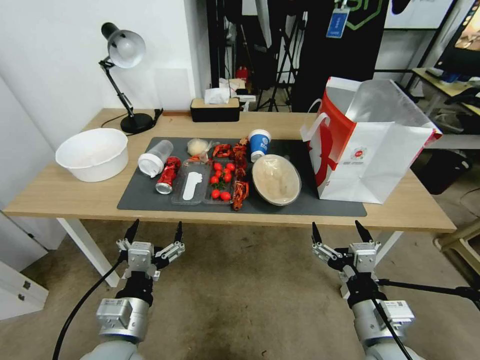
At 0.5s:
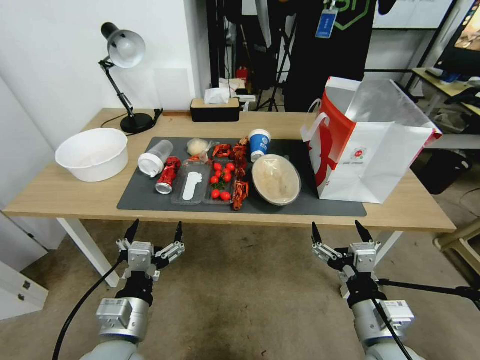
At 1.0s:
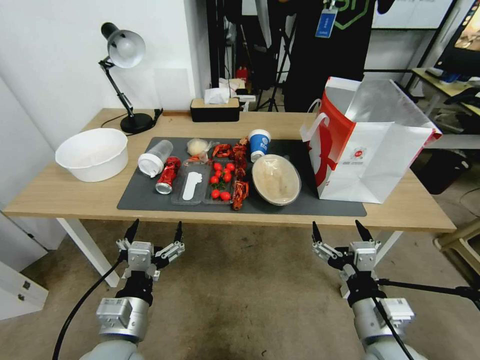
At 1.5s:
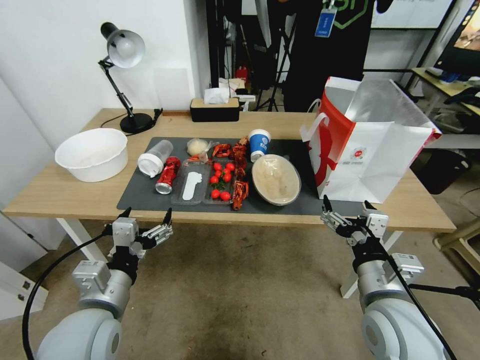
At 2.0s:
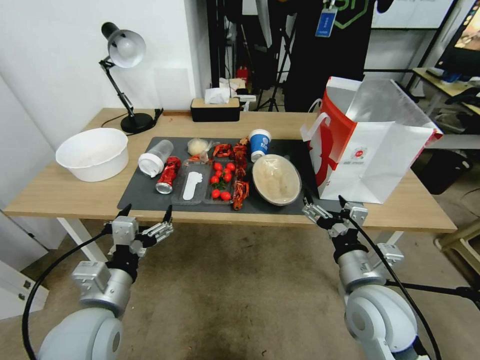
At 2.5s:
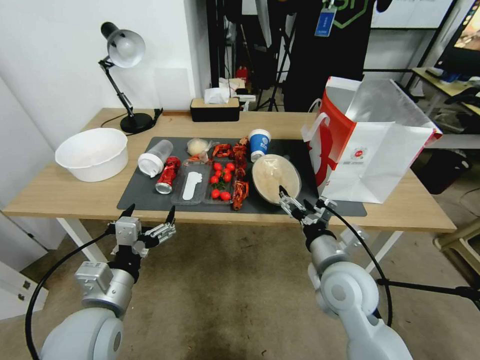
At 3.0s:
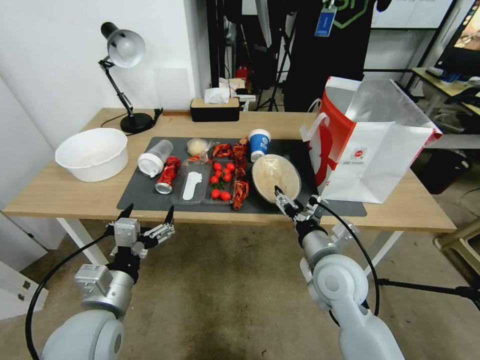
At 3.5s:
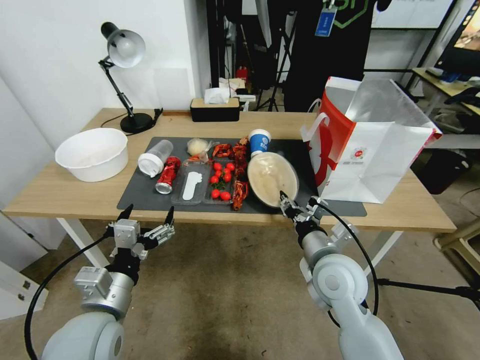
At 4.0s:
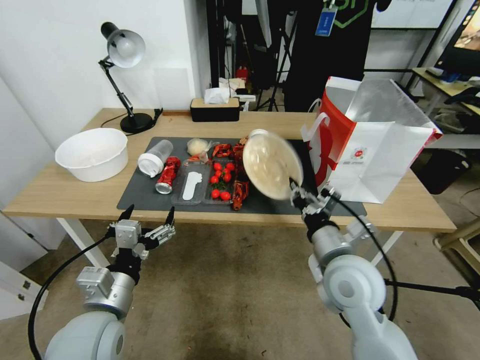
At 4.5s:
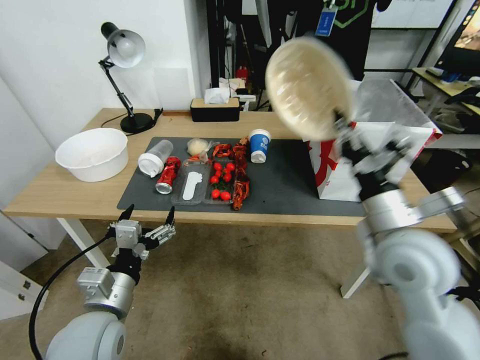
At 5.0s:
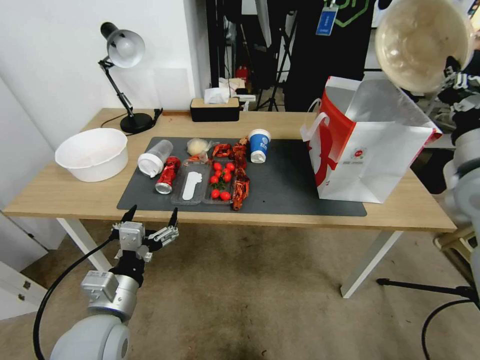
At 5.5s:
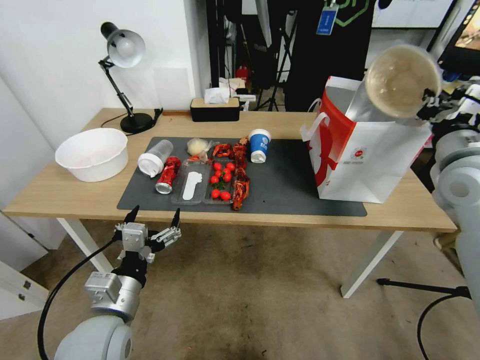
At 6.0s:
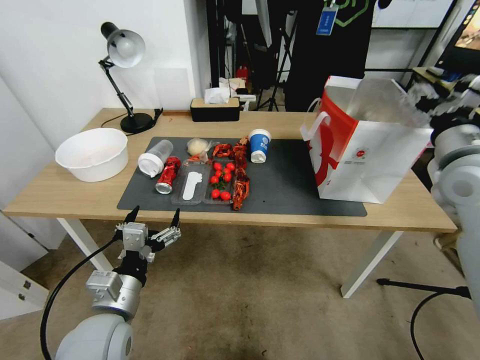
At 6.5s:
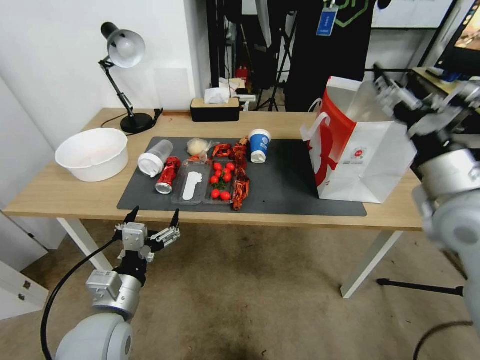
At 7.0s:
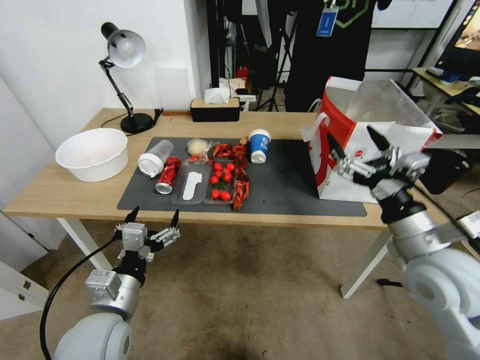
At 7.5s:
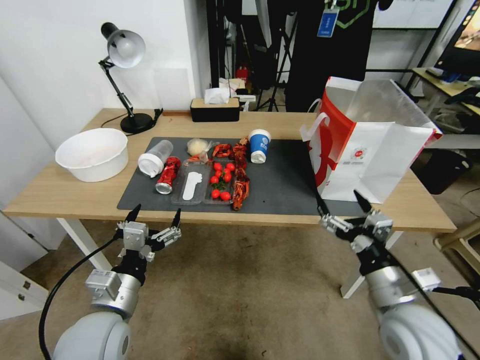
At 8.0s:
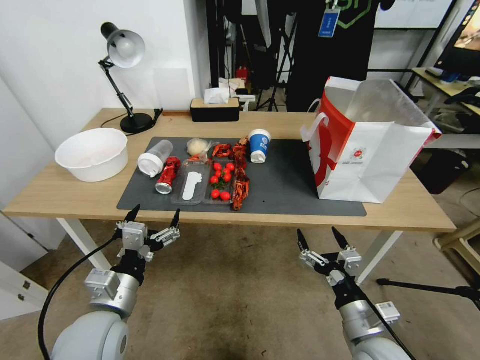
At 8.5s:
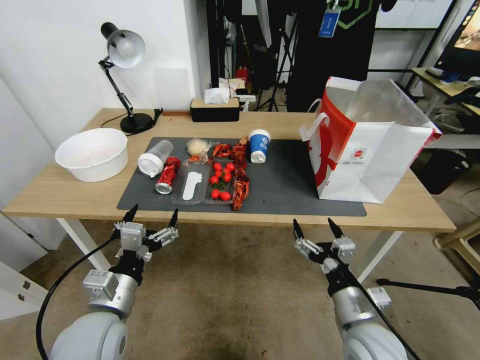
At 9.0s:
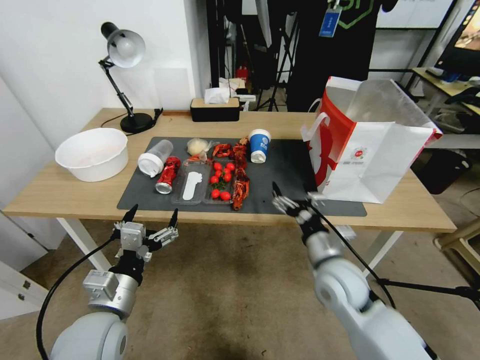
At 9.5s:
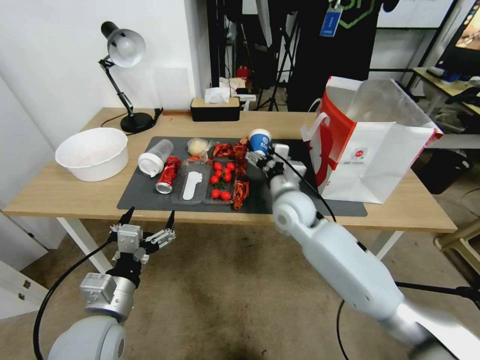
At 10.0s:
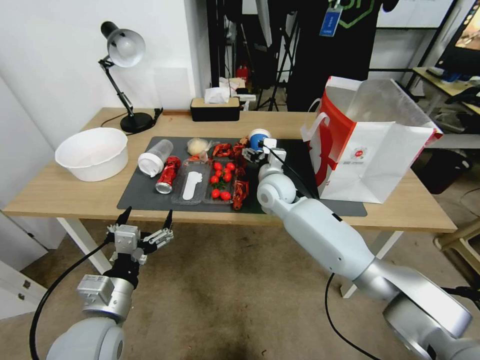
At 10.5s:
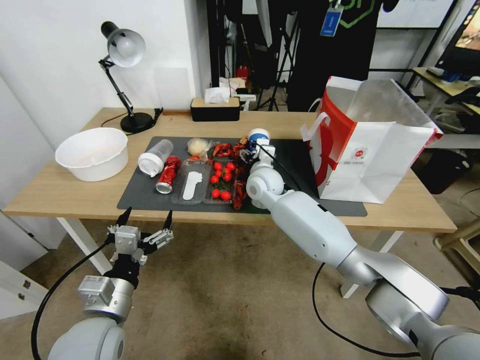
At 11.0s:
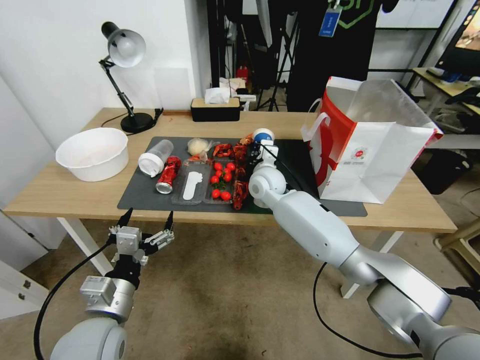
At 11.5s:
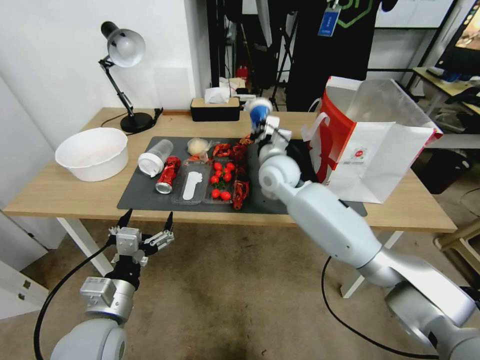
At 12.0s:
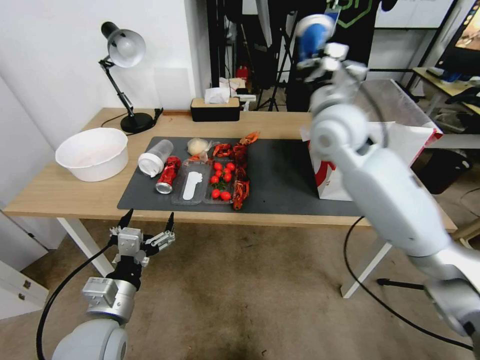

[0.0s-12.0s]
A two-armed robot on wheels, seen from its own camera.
2.0s to 4.0s: The right gripper heads forward, covering roughly 5 cm, and closes.
4.0s to 6.0s: The right gripper travels to the right, upward and forward by some 25 cm, and opens up.
6.0s to 8.0s: The right gripper is displaced downward, backward and to the left by roughly 35 cm, and opens up.
8.0s to 10.0s: The right gripper shifts about 35 cm forward and to the left.
10.0s to 12.0s: The right gripper goes some 10 cm upward, and closes up.

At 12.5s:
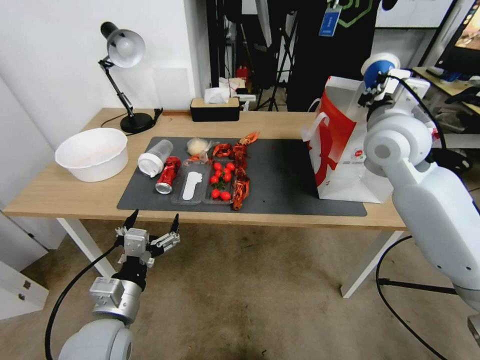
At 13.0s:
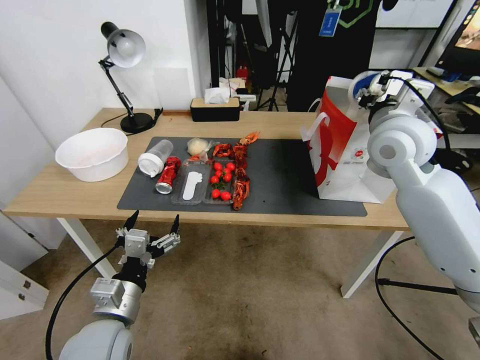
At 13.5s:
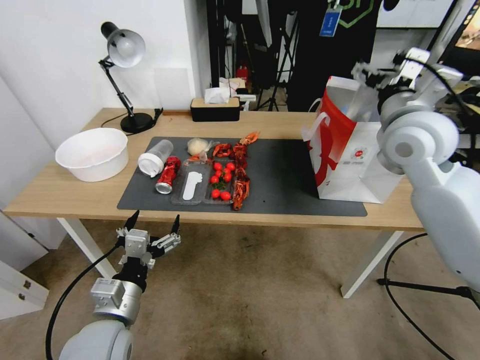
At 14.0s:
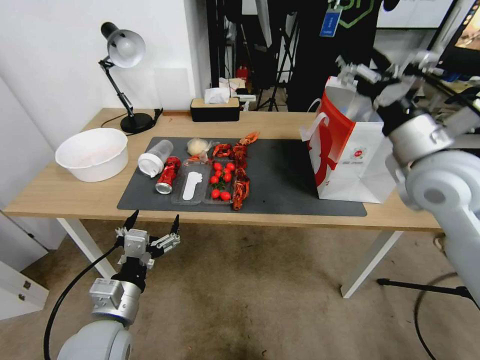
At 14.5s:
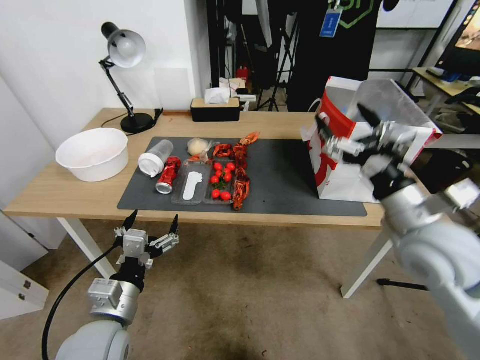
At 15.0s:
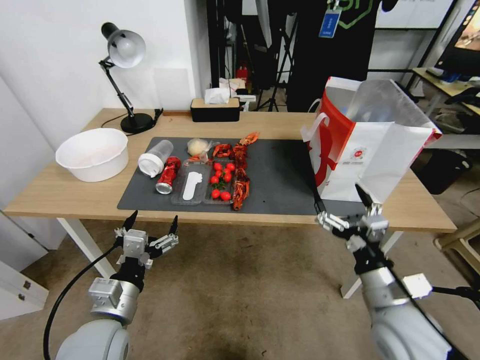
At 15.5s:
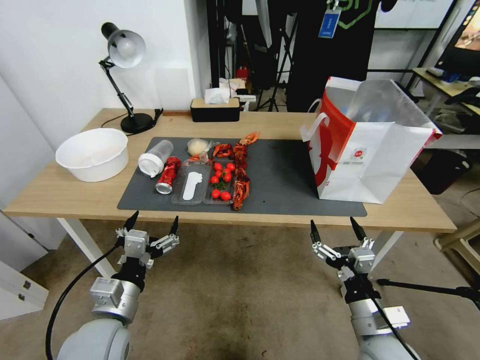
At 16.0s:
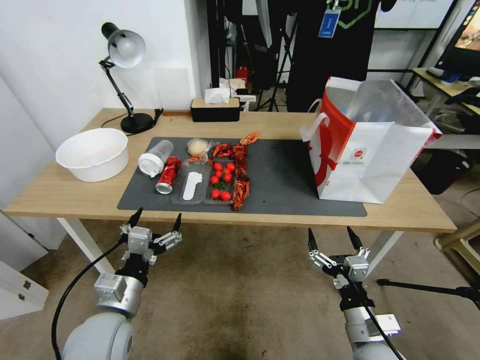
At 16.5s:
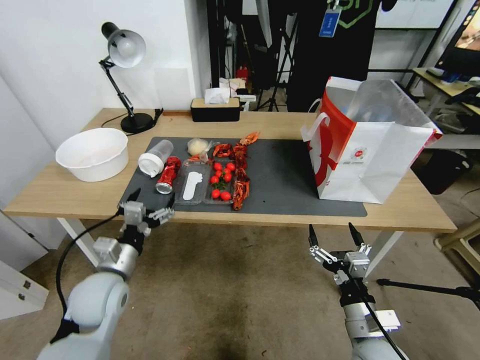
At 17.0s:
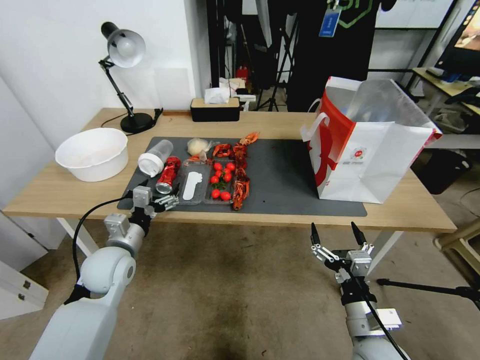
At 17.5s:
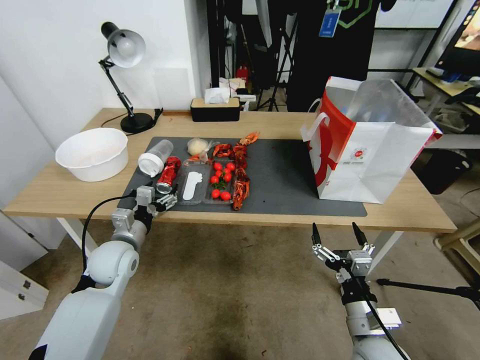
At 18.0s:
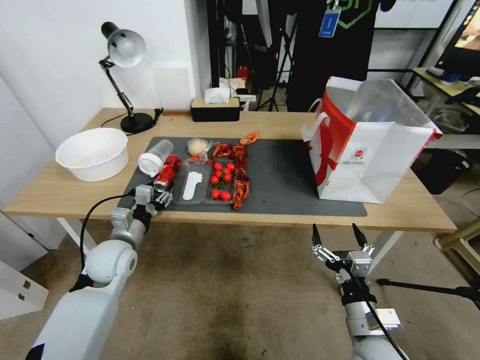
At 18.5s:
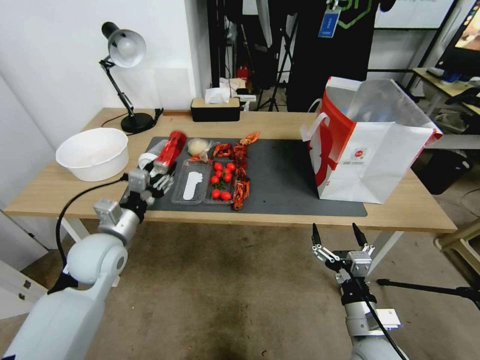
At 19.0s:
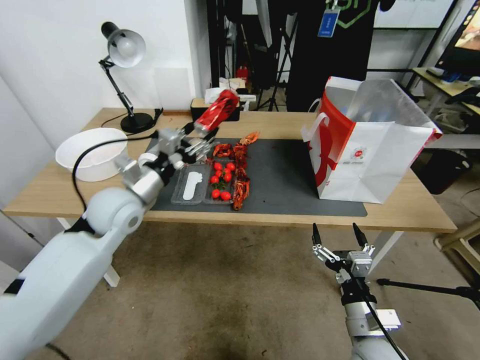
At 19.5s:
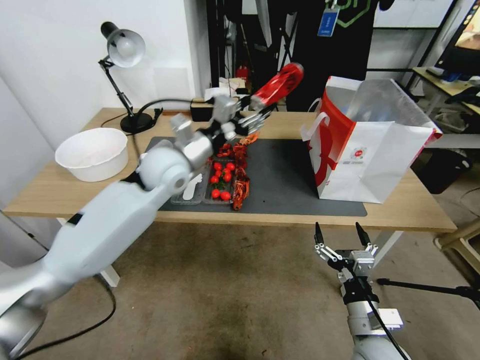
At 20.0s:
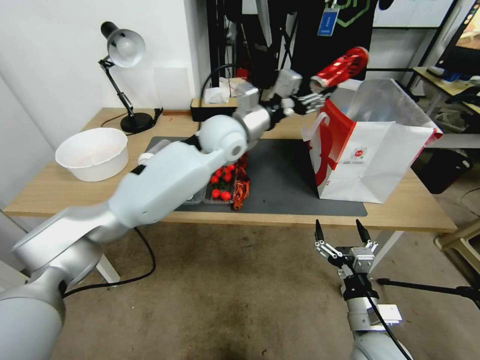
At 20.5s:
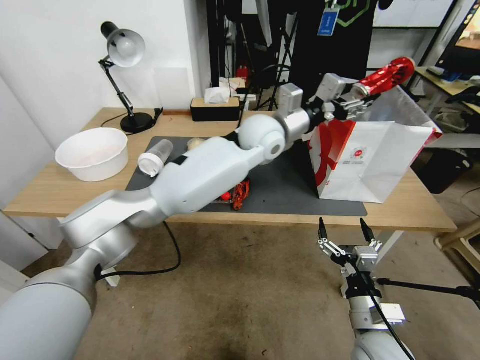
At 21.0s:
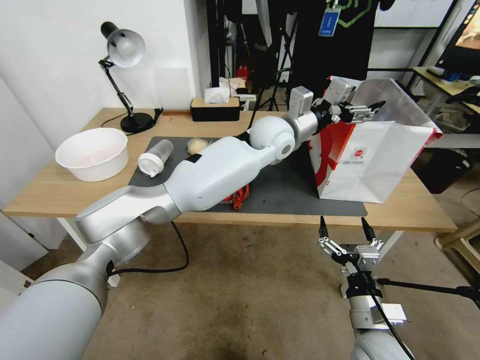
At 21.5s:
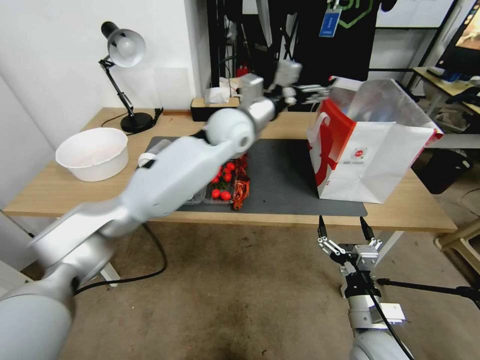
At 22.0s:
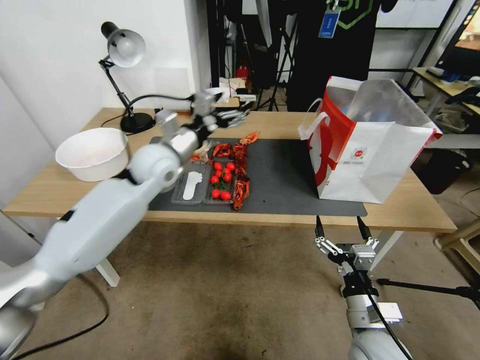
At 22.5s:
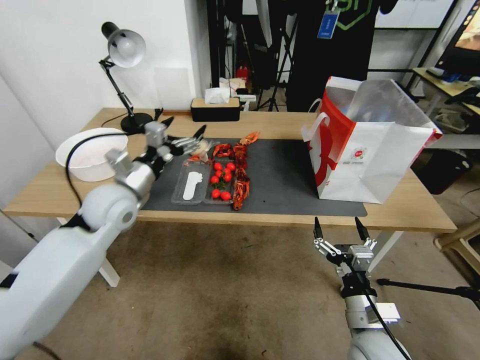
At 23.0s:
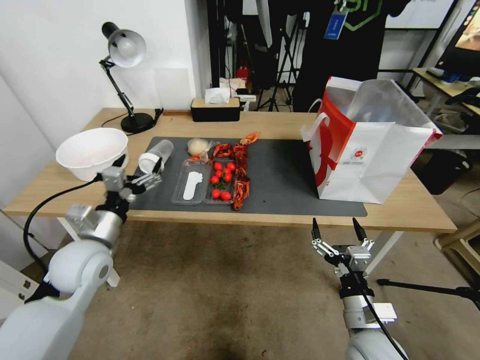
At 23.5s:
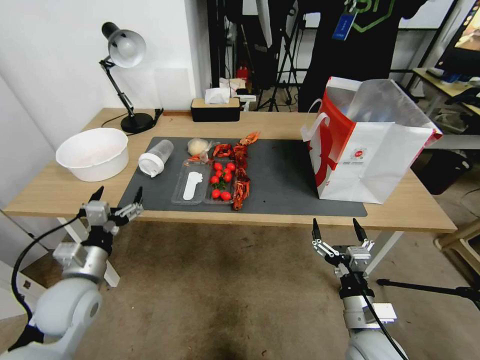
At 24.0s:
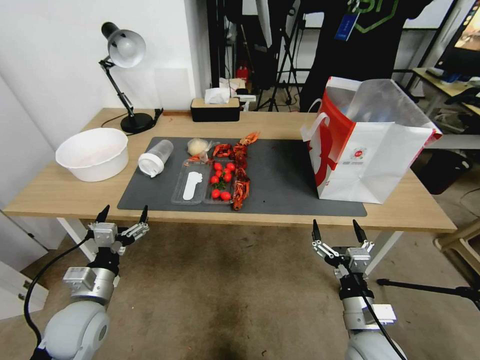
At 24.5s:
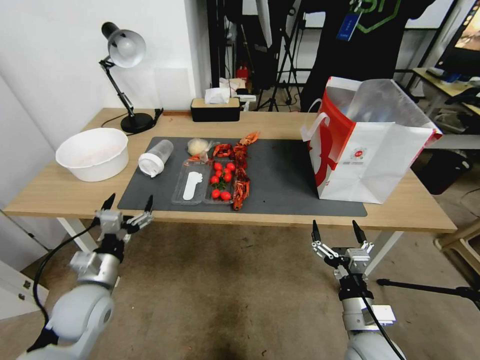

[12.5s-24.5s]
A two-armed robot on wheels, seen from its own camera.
12.5s to 14.5s: The right gripper heads backward and downward, covering about 20 cm, and opens its fingers.
14.5s to 16.5s: The right gripper moves downward and backward, about 25 cm. The left gripper goes roughly 10 cm forward.
16.5s to 18.5s: The left gripper travels forward by approximately 5 cm, and closes its fingers.
18.5s to 20.5s: The left gripper heads to the right, forward and upward, covering some 40 cm.
20.5s to 22.5s: The left gripper travels to the left by roughly 30 cm, and opens.
22.5s to 24.5s: The left gripper shifts some 25 cm backward and downward.

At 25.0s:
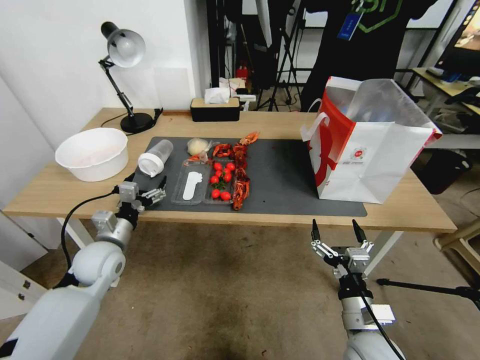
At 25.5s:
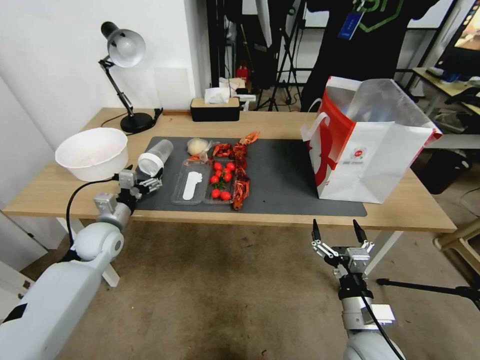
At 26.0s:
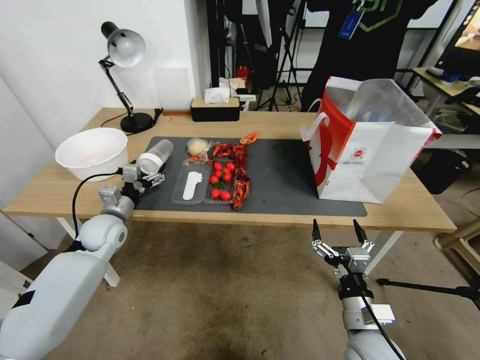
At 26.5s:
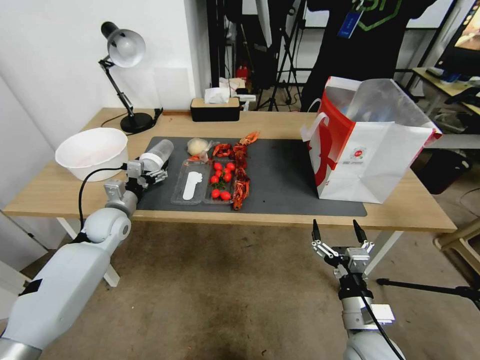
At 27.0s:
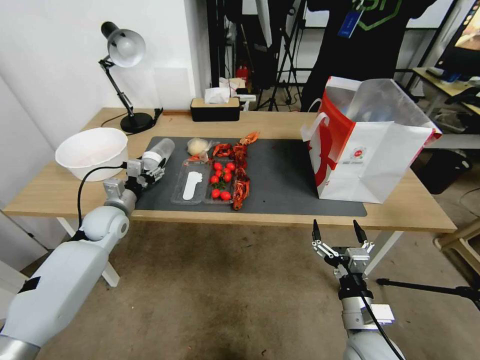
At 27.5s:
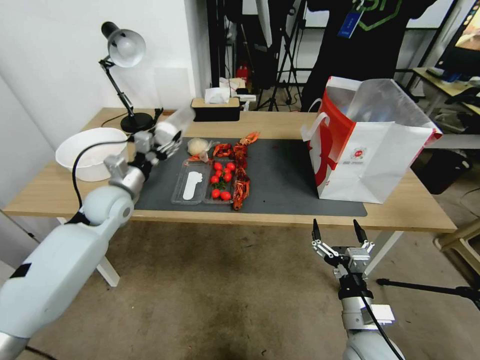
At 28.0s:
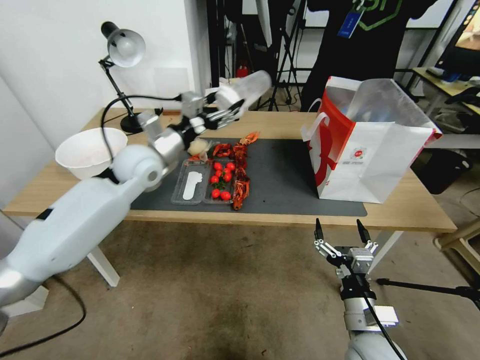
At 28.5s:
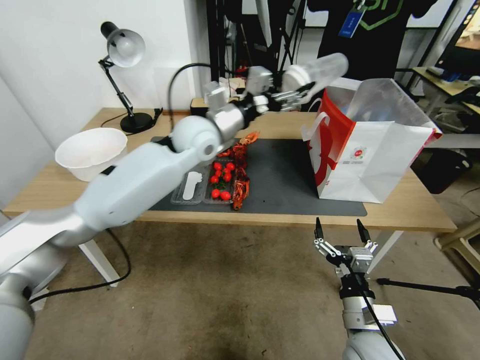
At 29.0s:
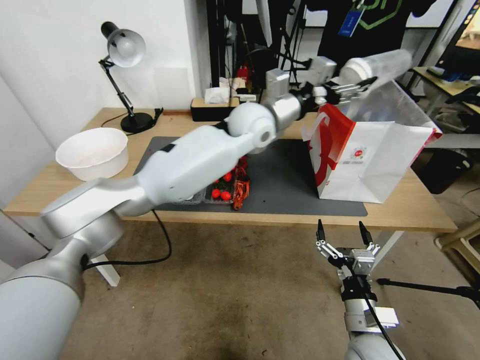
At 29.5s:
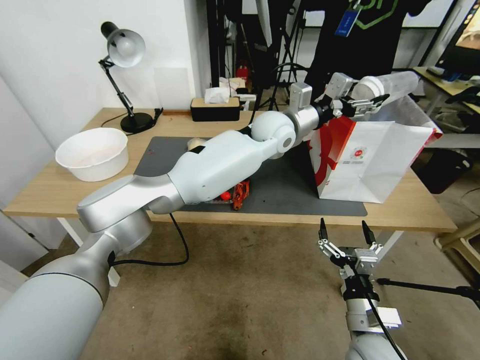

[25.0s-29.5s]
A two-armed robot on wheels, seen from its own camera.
25.0s to 27.0s: The left gripper moves forward, about 10 cm.
27.0s to 29.5s: The left gripper travels to the right and upward by some 50 cm.
